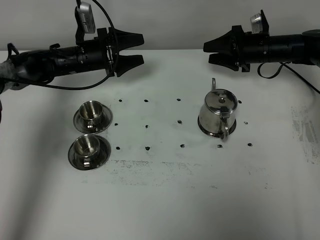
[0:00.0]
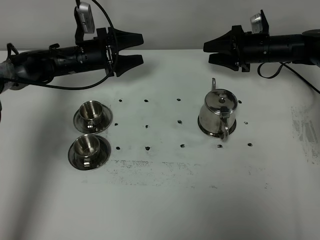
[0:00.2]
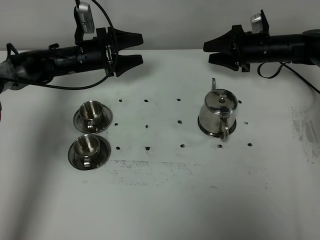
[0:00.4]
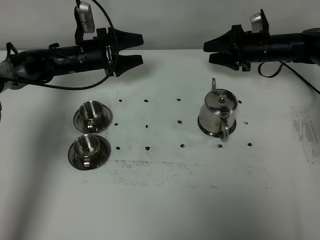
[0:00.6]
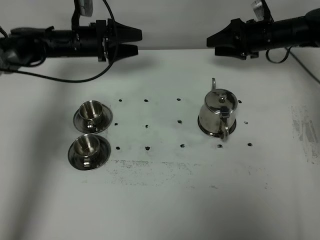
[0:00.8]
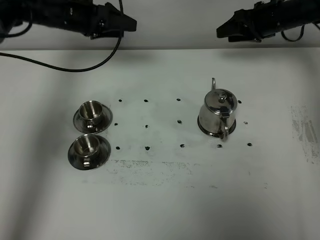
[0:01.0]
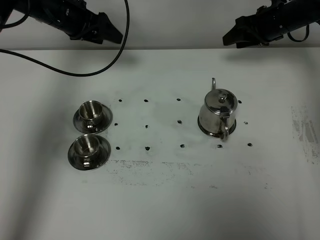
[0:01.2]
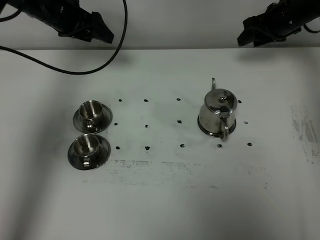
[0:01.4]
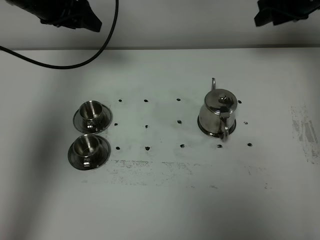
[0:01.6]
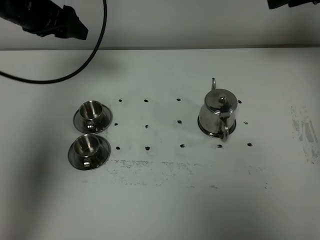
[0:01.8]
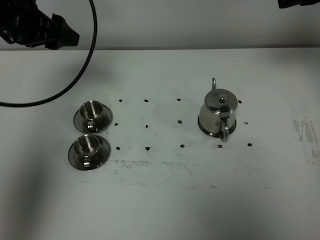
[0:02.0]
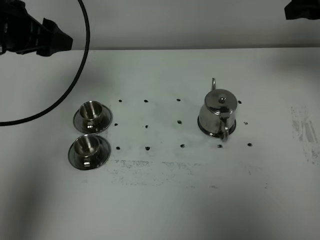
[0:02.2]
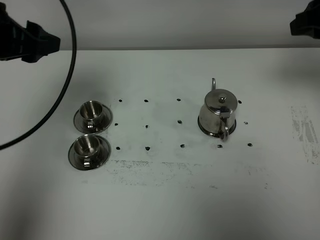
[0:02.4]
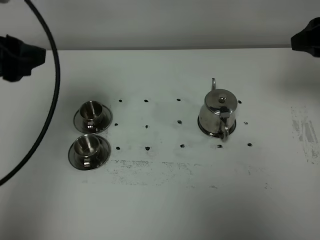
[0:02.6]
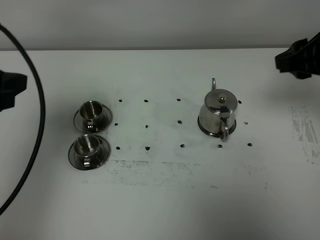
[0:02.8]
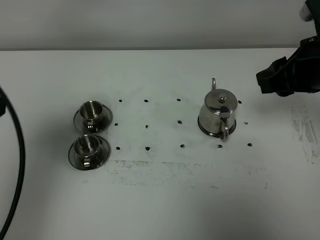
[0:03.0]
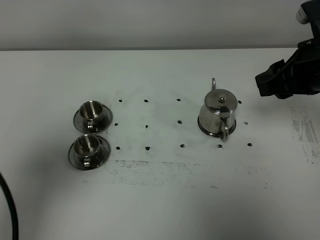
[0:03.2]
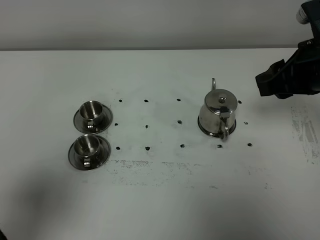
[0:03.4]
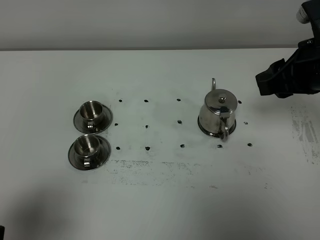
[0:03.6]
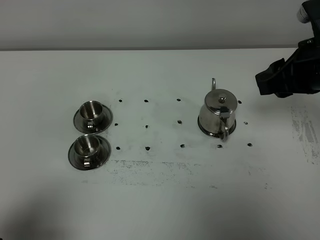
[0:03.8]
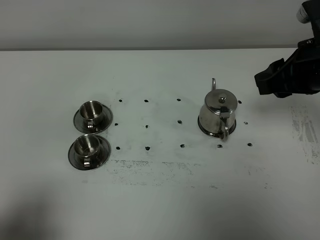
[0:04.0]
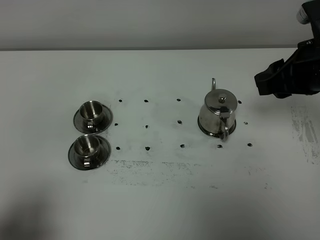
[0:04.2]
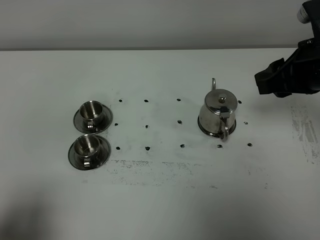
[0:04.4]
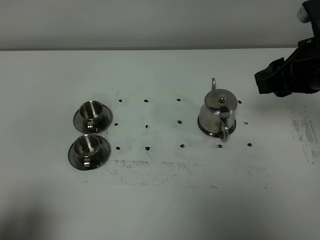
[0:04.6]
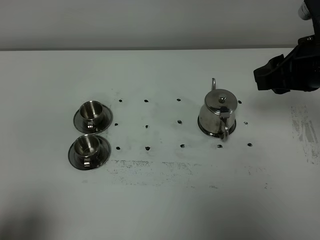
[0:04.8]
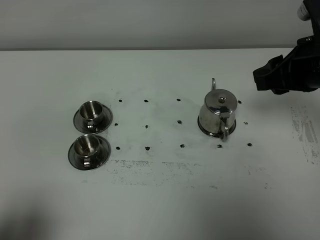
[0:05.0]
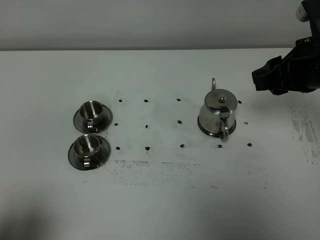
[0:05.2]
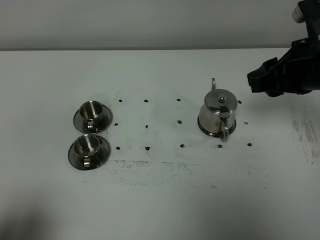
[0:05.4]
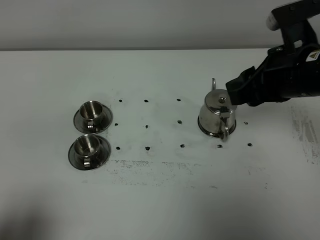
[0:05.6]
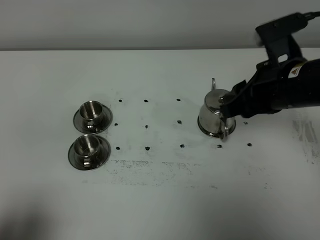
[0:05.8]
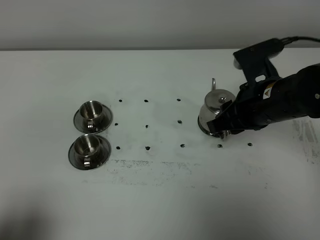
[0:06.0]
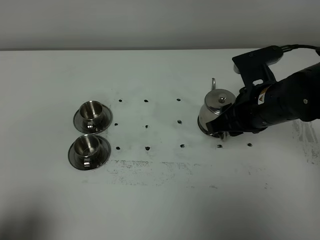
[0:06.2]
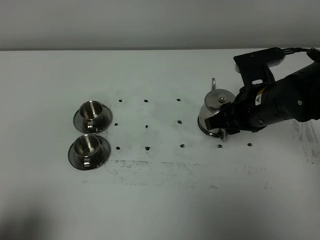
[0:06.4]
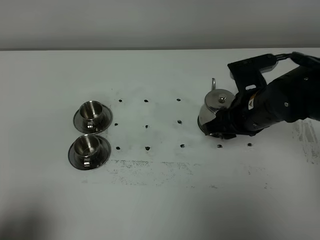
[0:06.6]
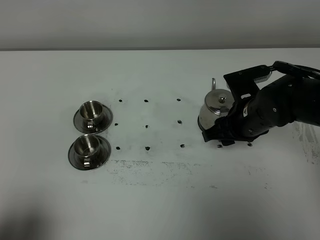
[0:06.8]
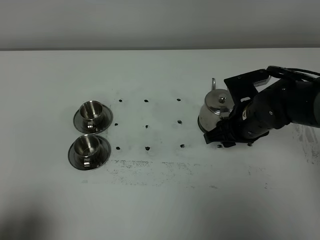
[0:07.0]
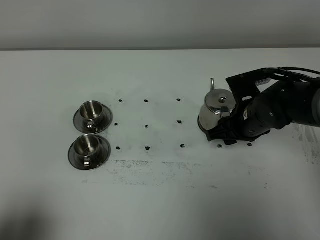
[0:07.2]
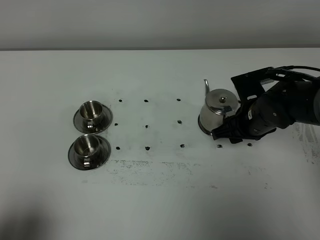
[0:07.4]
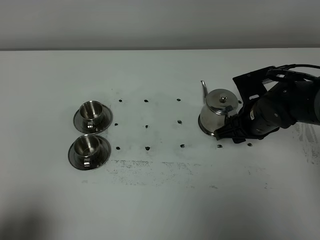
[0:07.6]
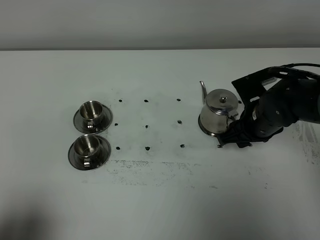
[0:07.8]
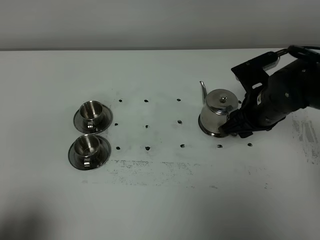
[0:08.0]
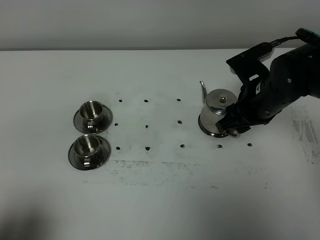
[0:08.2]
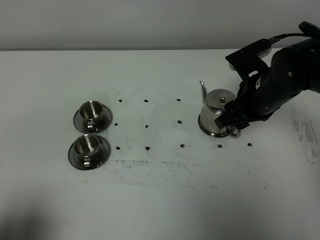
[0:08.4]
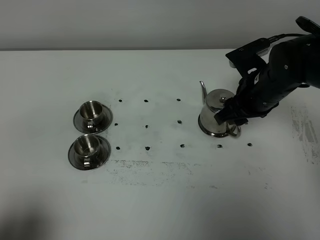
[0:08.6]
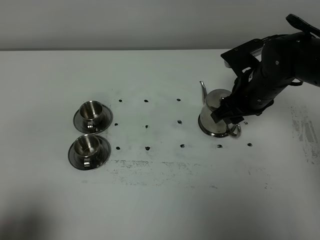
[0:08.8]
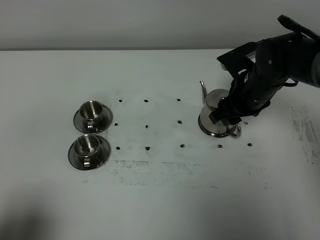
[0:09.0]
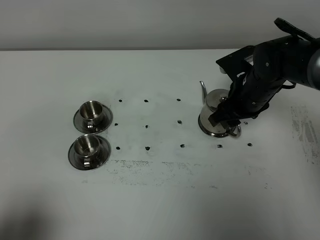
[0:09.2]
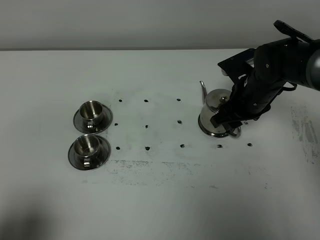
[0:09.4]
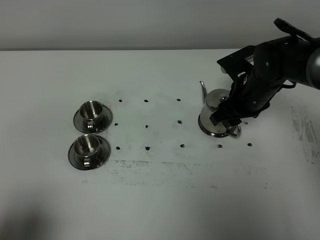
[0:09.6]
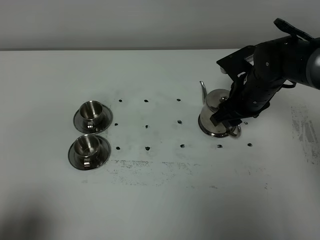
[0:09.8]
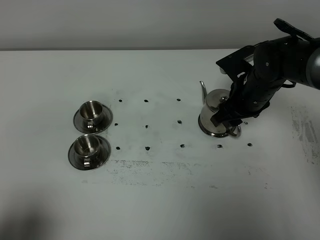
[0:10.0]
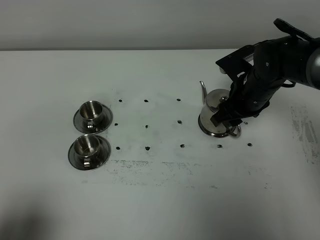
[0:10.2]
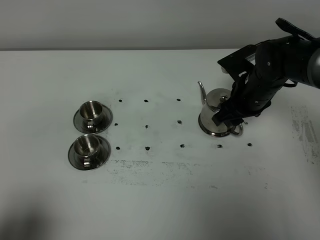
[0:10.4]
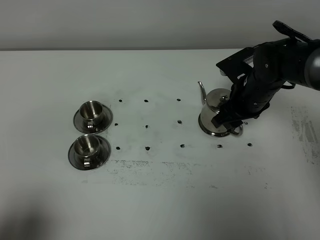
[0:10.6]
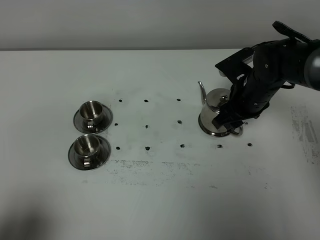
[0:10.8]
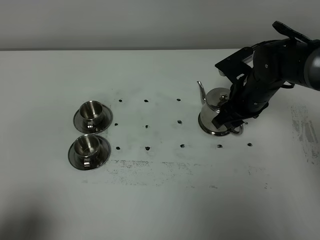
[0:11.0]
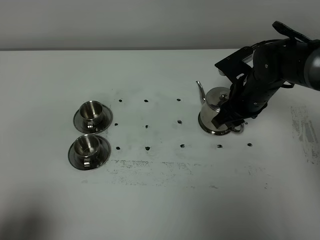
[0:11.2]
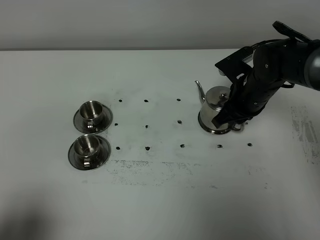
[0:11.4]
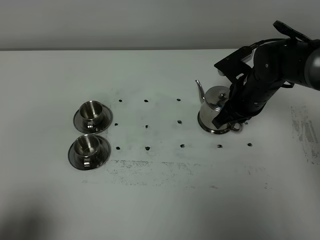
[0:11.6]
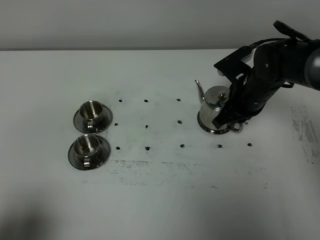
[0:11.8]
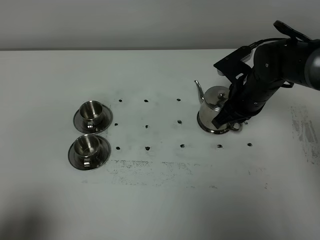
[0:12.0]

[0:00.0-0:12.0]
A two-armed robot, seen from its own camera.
Task of the whole recording: grasp the stainless steel teapot and pour the tea into the two stainless steel teacups one by one, put the stainless steel teapot back in its original place.
0:00.0 to 0:01.6: Both grippers move upward, about 20 cm.
0:01.6 to 0:03.0: The left gripper is displaced backward by approximately 30 cm; the right gripper heads backward, covering about 20 cm.
0:03.0 to 0:04.4: The left gripper shifts some 15 cm backward and downward.
0:04.4 to 0:06.0: The right gripper goes some 10 cm to the left and downward.
0:06.0 to 0:07.6: The right gripper moves downward, roughly 10 cm.
0:07.6 to 0:09.0: The right gripper shifts by some 5 cm.
0:09.0 to 0:10.4: The grippers make only small movements.
0:10.4 to 0:12.0: The right gripper closes its fingers.

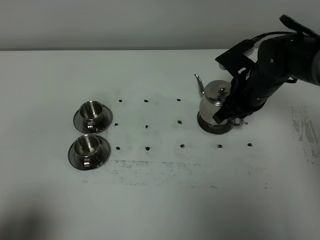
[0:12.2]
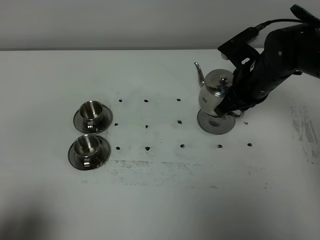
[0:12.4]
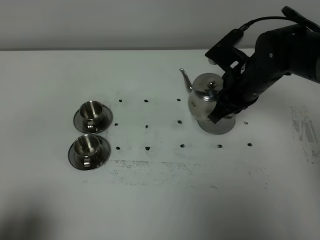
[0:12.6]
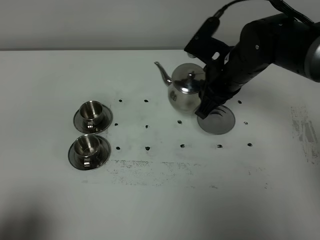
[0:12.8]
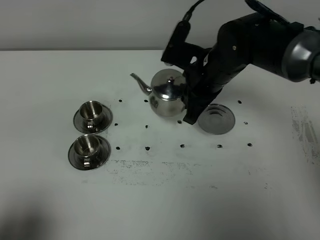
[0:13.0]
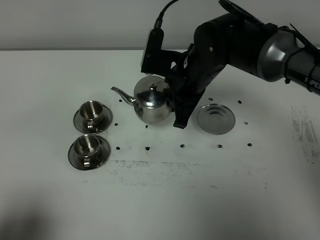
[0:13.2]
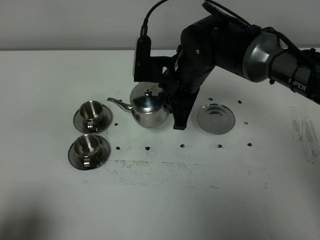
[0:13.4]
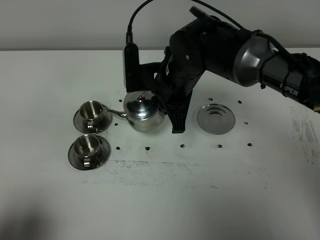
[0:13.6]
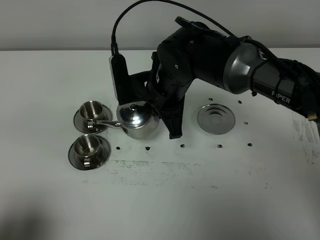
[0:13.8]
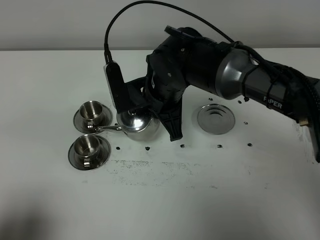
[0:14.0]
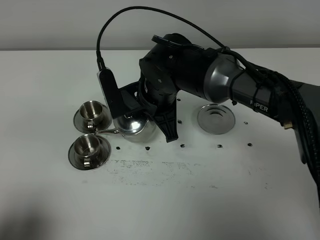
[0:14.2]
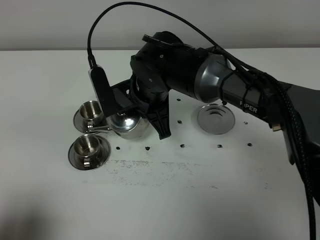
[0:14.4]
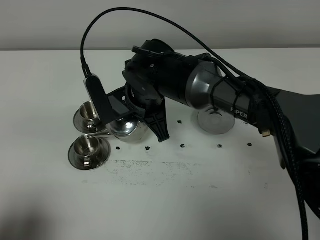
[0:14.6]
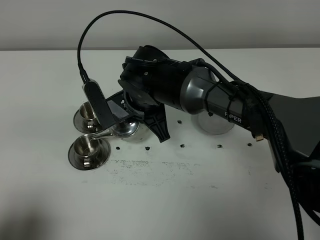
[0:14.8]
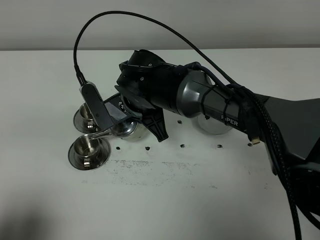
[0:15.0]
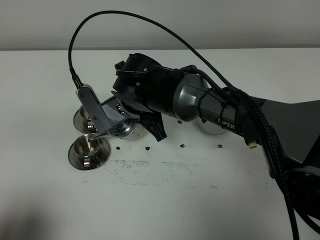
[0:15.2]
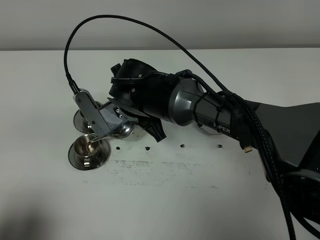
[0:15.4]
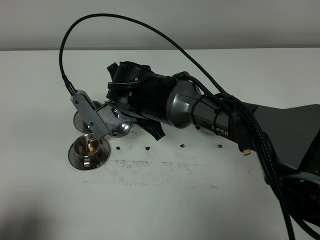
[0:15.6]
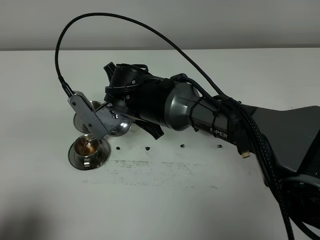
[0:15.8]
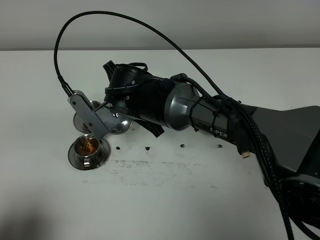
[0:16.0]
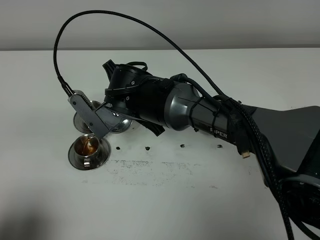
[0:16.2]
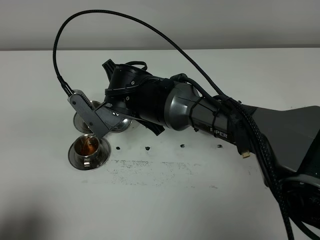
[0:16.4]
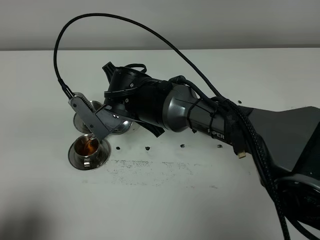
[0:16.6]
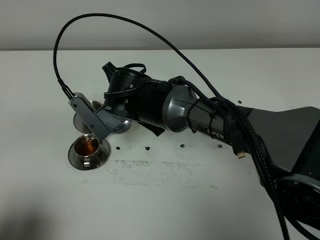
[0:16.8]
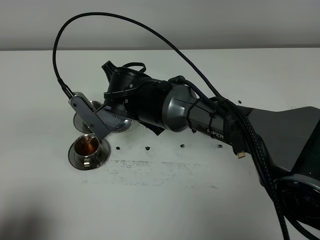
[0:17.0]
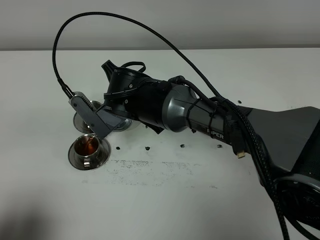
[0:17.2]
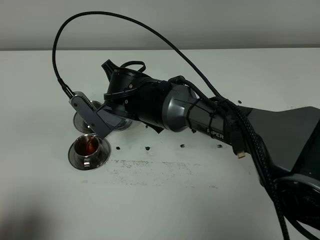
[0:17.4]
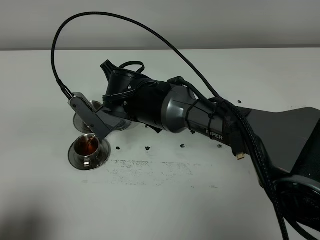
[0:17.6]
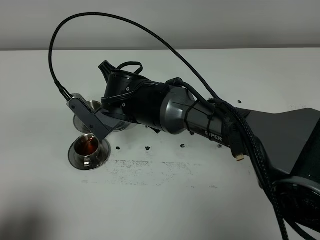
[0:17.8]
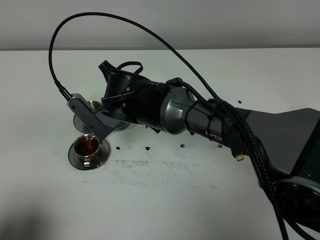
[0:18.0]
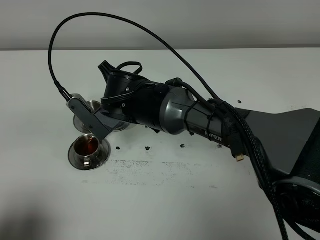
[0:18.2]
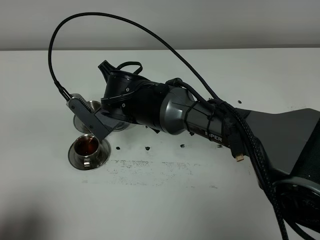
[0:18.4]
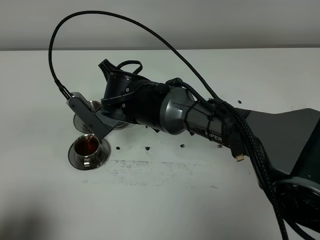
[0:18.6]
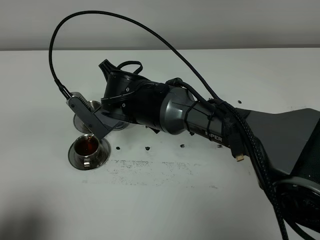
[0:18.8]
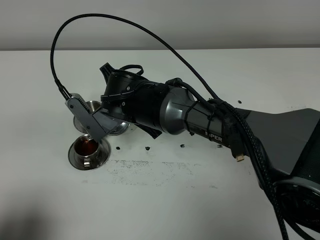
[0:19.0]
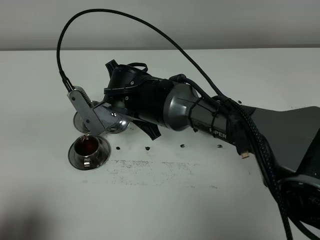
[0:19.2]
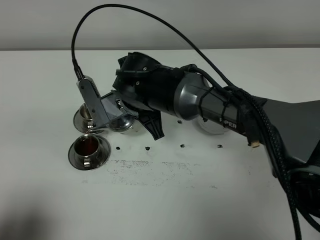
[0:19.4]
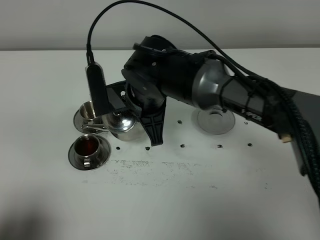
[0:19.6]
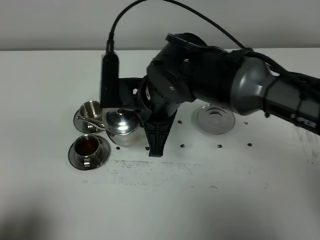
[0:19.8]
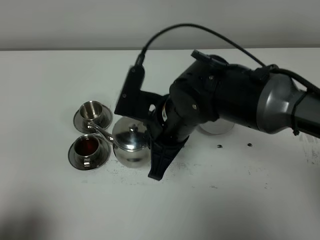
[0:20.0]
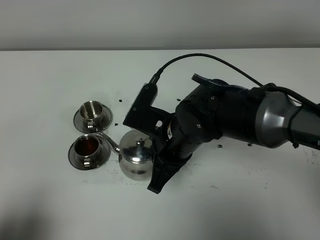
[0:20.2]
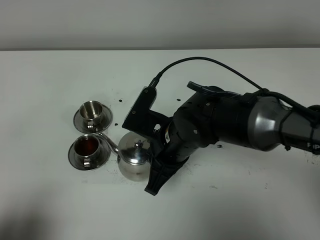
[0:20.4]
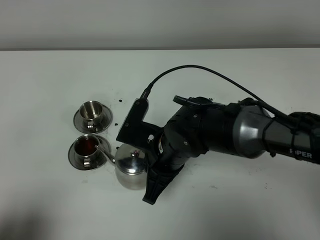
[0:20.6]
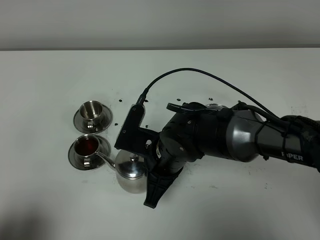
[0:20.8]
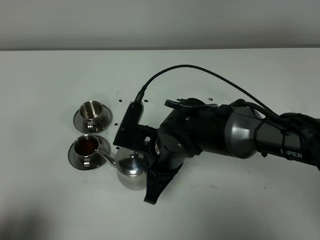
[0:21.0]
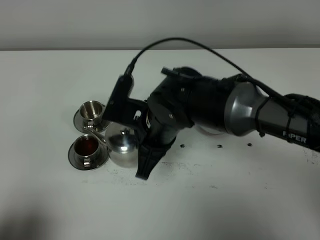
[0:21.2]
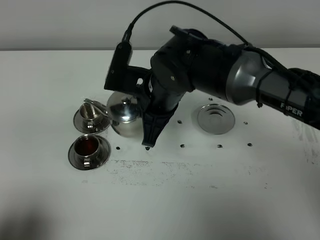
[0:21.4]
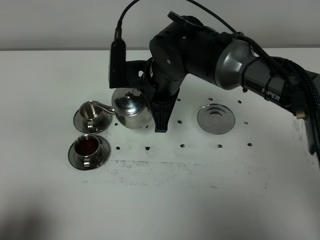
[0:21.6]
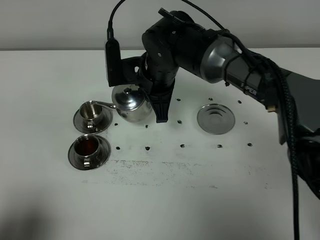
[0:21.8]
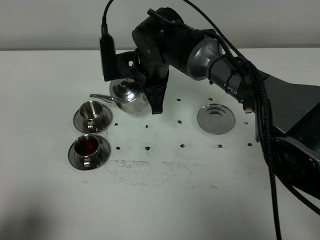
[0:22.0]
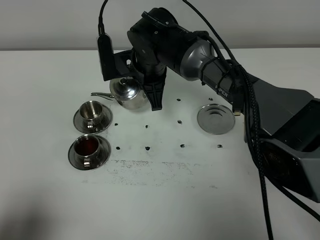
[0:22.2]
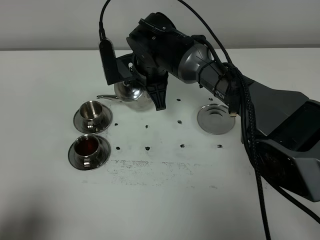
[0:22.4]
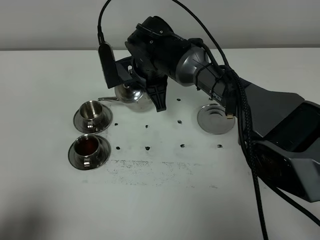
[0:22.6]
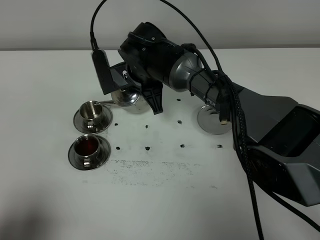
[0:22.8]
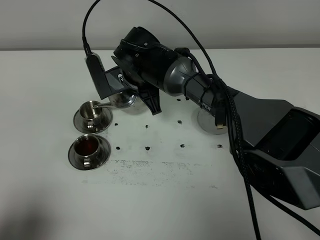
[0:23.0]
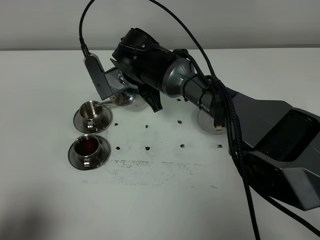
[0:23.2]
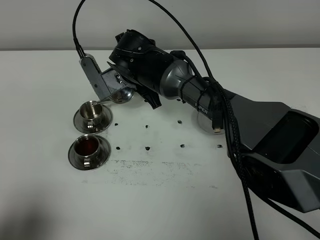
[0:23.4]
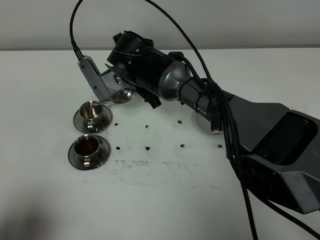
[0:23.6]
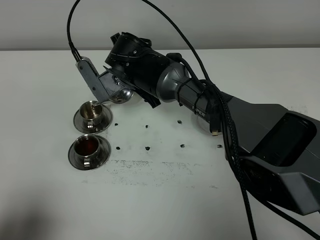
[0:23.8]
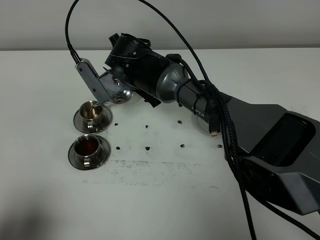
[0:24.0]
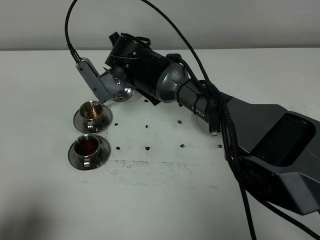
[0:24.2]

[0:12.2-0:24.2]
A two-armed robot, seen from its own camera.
Task of the whole recording: grasp the stainless steel teapot and pour the tea into the two stainless steel teacups one by one, put the stainless steel teapot back in its original place.
0:12.2 to 0:13.8: The right gripper goes approximately 15 cm to the left.
0:13.8 to 0:15.2: The right gripper is displaced to the left by approximately 5 cm.
0:15.2 to 0:16.6: The grippers move only a little.
0:16.6 to 0:18.2: Both grippers stay put.
0:18.2 to 0:19.8: The right gripper is displaced to the right and upward by roughly 10 cm.
0:21.2 to 0:22.6: The right gripper shifts approximately 15 cm forward.
